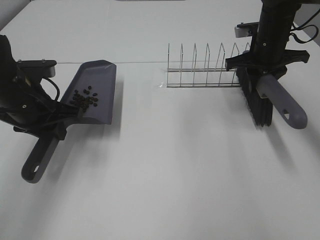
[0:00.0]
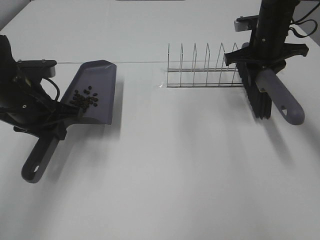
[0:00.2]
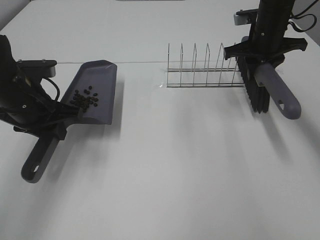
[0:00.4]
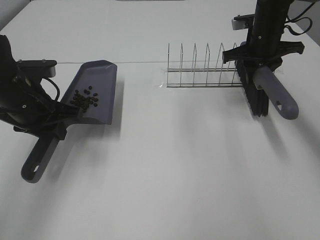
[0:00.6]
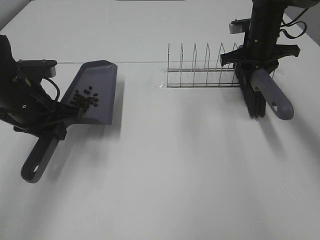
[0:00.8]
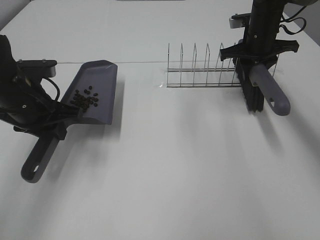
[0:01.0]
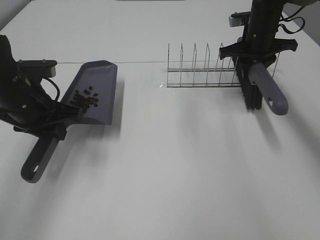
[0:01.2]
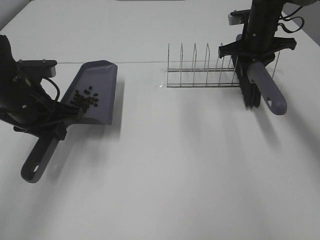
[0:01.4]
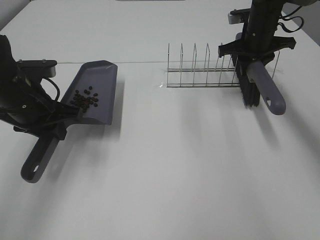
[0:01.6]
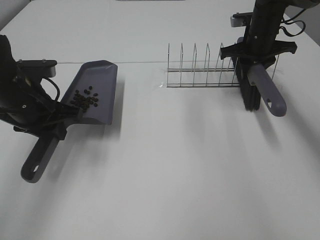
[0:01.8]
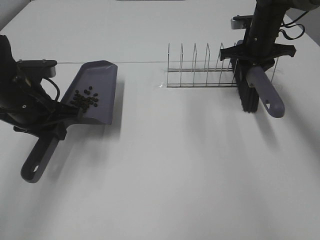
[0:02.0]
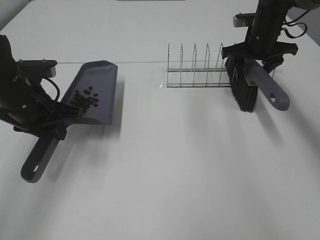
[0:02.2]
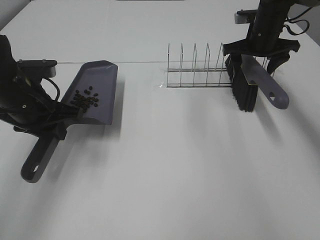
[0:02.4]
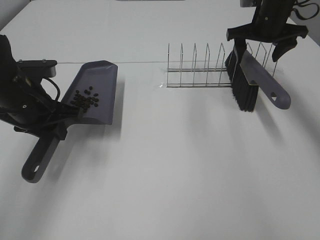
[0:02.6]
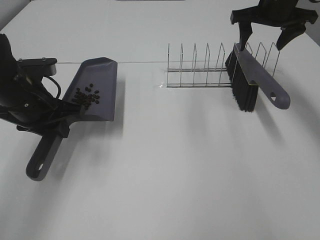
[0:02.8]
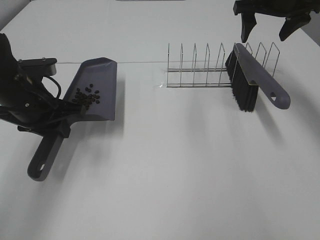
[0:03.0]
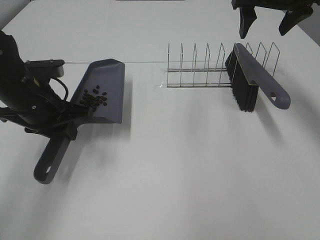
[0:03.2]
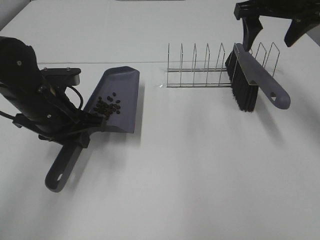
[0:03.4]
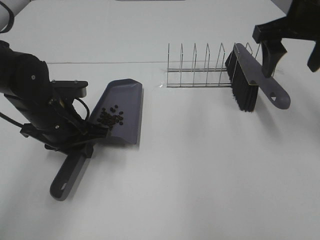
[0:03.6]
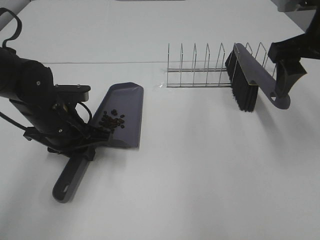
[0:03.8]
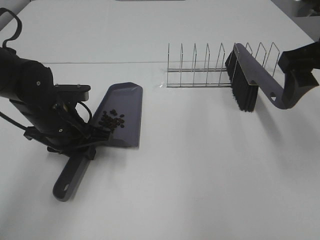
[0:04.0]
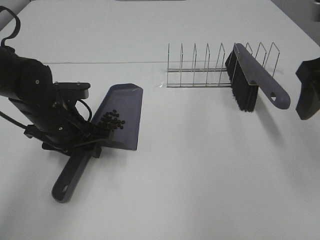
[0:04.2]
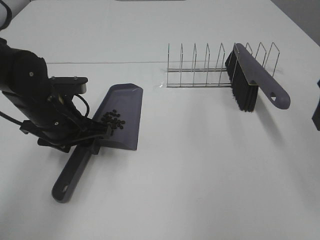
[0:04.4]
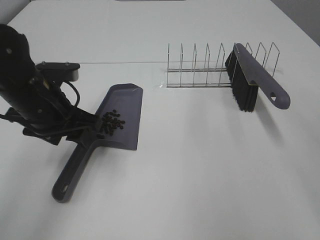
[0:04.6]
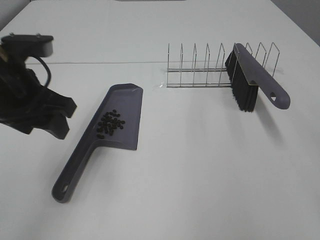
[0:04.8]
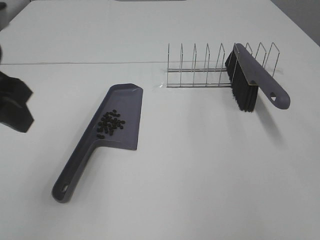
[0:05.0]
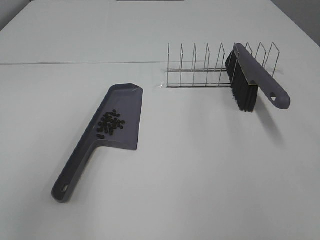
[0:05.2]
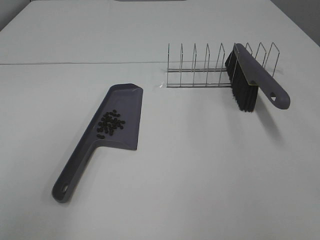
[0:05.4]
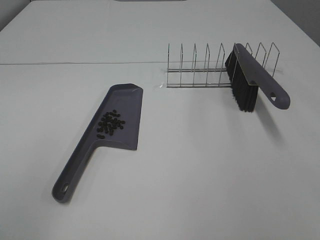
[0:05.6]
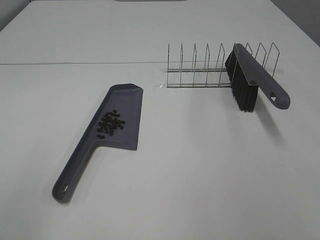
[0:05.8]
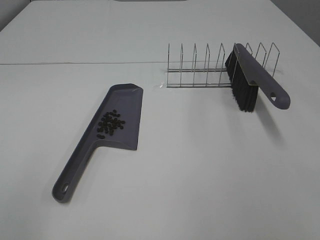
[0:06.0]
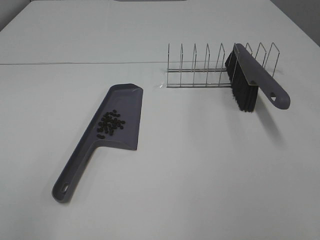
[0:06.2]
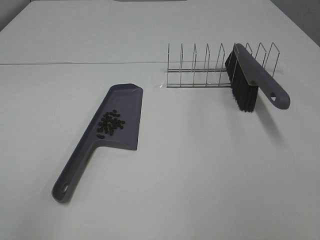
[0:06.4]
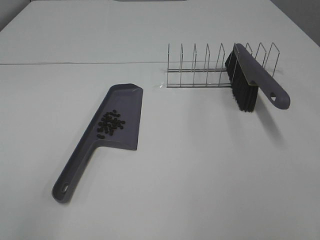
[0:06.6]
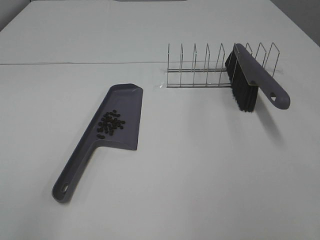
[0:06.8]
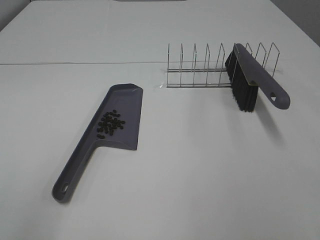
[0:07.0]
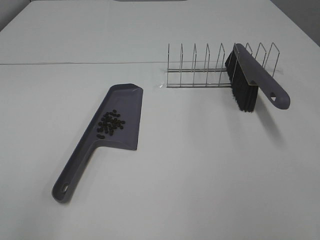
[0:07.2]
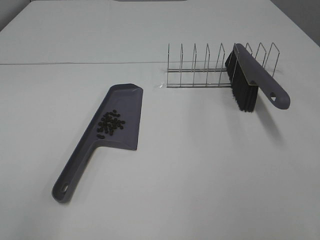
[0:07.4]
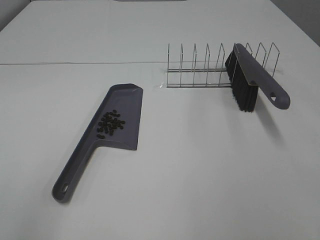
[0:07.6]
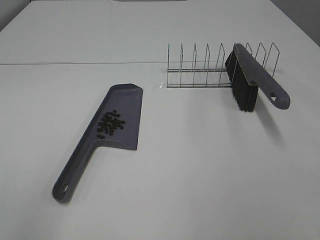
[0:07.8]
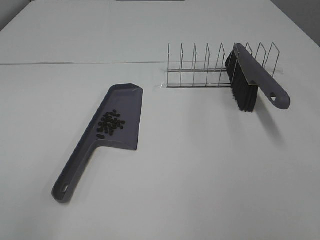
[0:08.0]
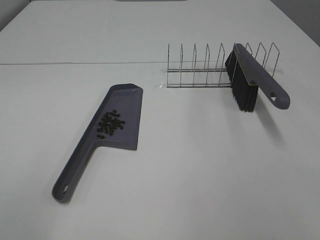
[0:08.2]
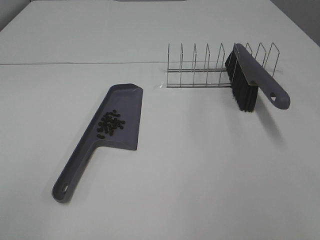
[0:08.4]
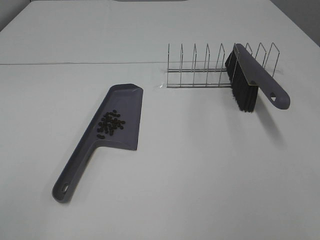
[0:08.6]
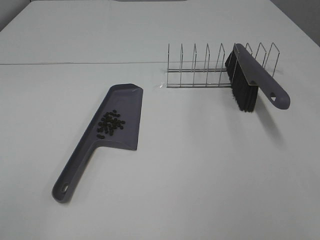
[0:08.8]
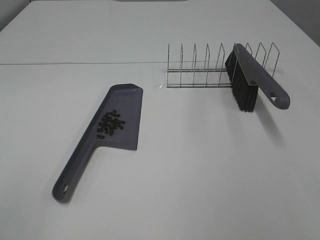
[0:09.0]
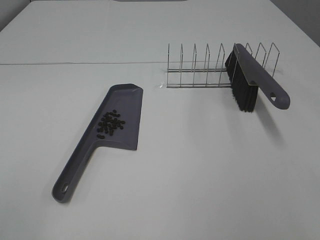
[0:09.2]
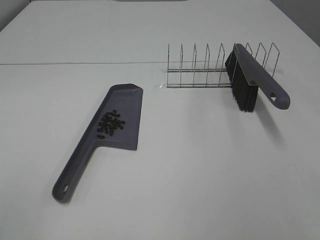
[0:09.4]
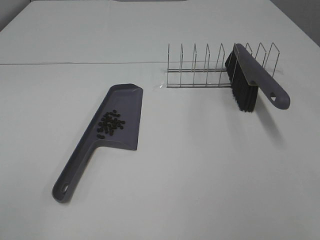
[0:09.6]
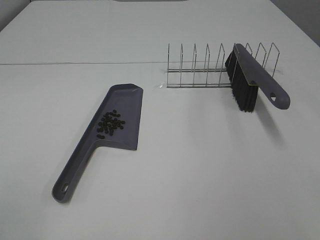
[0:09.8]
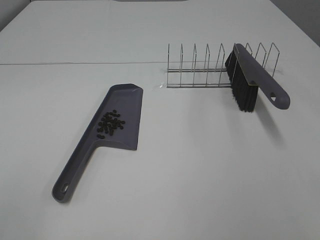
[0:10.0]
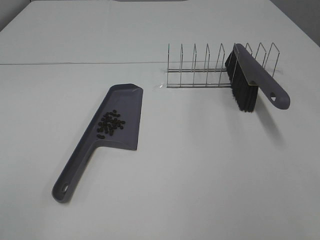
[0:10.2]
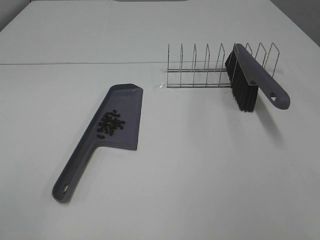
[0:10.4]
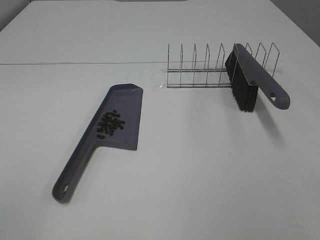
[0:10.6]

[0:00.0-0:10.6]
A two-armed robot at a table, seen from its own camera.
Task of the whole recording: Sweep Coffee Bean.
Step, 0:00.0 to 0:02.4: Right hand:place the broom on the rack.
Step, 0:02.6 to 0:04.4: Left hand:place the dustpan on the table.
0:00.0 to 0:01.6: The grippers stay close to where they were, moving slightly.
0:01.6 to 0:03.0: The right gripper shifts approximately 10 cm upward, and opens up.
0:03.0 to 0:04.6: The right gripper heads backward, covering some 30 cm; the left gripper opens up.
0:04.6 to 0:06.0: The left gripper goes about 30 cm backward, to the left and upward; the right gripper is displaced backward by about 10 cm.
0:09.0 to 0:10.6: The two grippers keep their place.

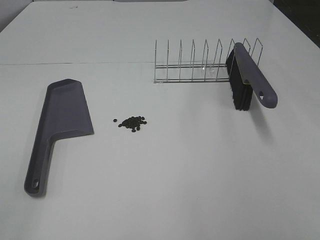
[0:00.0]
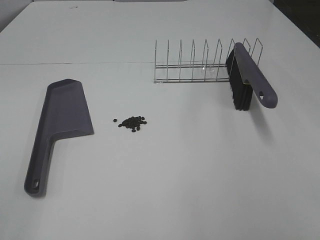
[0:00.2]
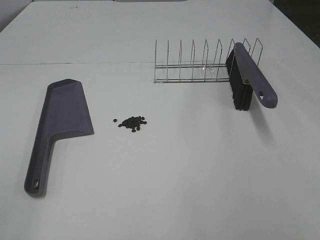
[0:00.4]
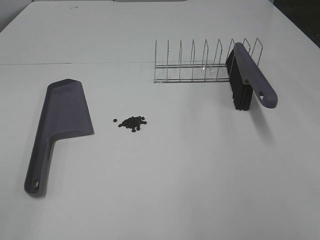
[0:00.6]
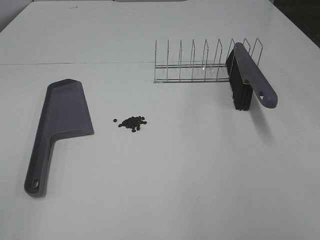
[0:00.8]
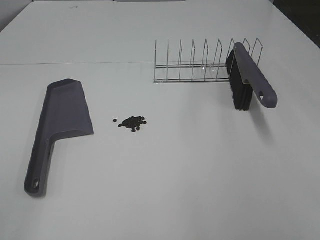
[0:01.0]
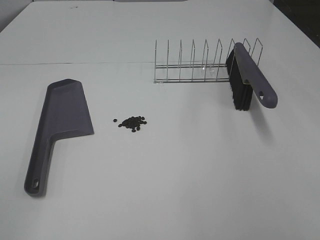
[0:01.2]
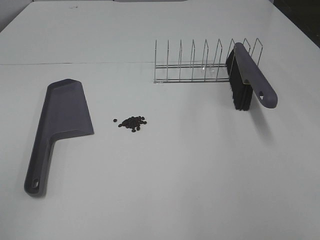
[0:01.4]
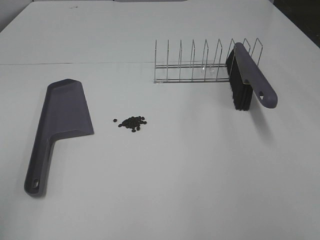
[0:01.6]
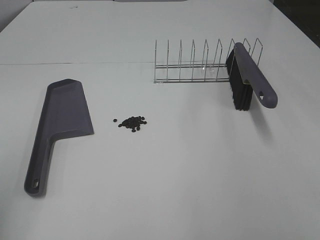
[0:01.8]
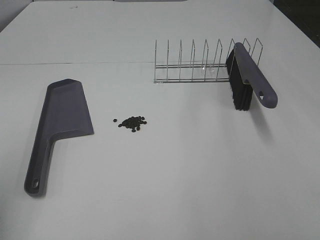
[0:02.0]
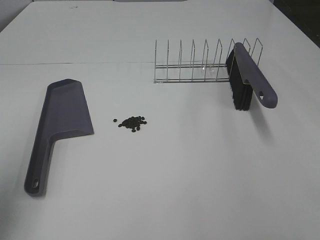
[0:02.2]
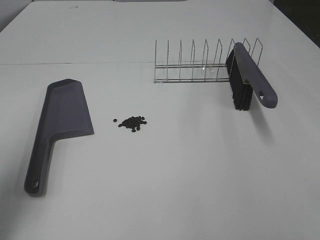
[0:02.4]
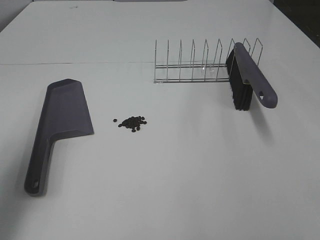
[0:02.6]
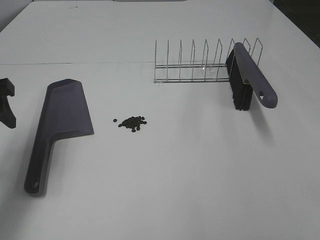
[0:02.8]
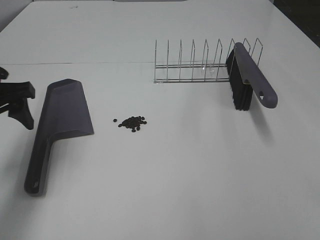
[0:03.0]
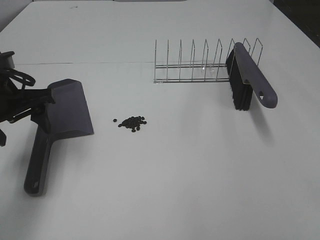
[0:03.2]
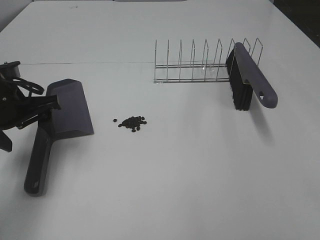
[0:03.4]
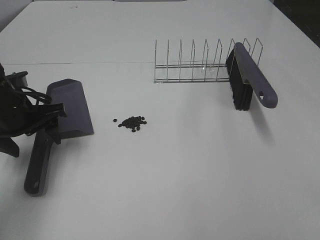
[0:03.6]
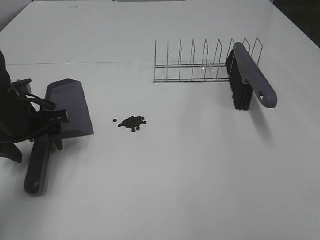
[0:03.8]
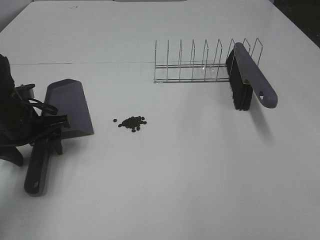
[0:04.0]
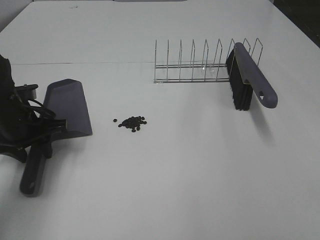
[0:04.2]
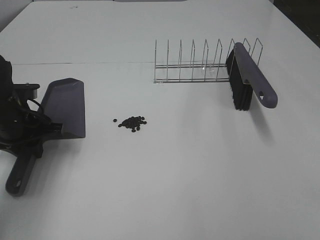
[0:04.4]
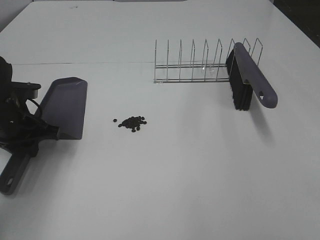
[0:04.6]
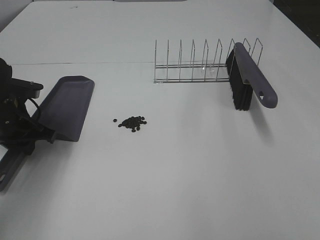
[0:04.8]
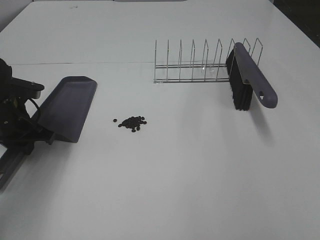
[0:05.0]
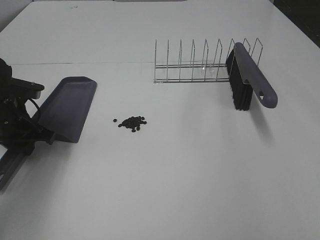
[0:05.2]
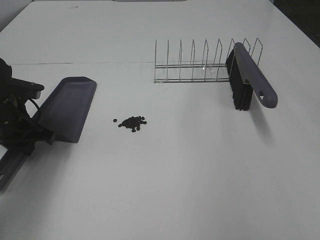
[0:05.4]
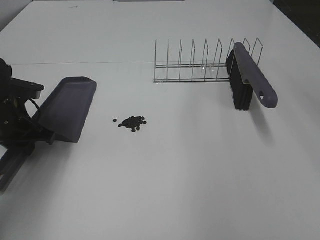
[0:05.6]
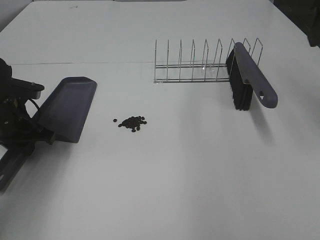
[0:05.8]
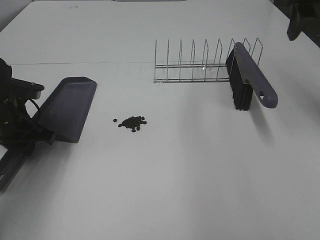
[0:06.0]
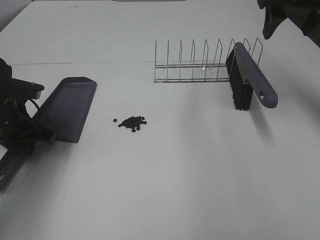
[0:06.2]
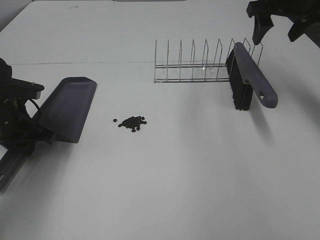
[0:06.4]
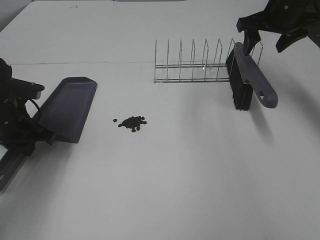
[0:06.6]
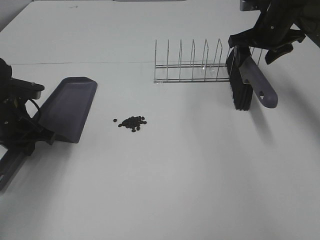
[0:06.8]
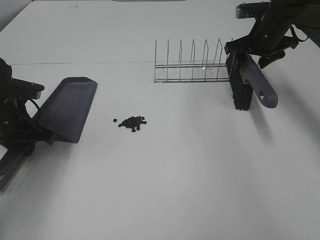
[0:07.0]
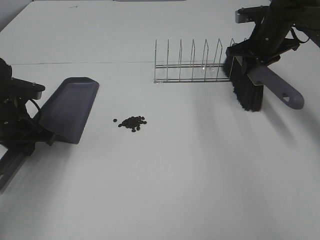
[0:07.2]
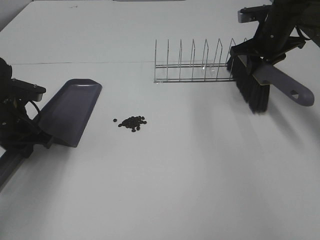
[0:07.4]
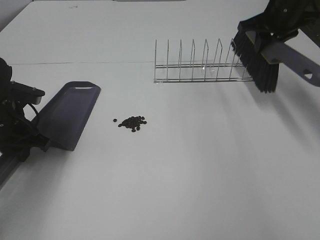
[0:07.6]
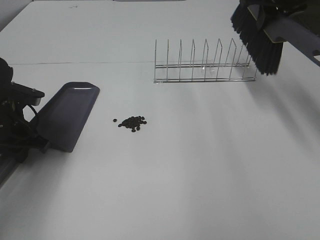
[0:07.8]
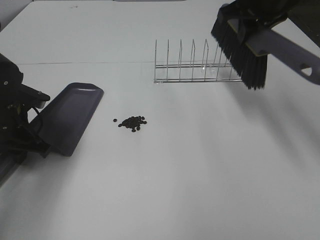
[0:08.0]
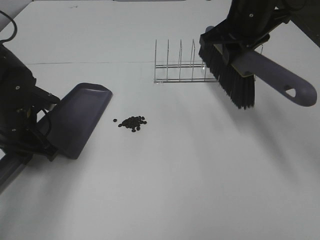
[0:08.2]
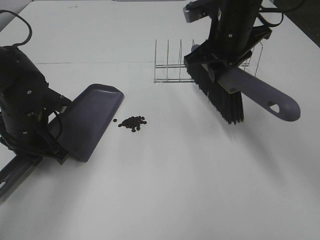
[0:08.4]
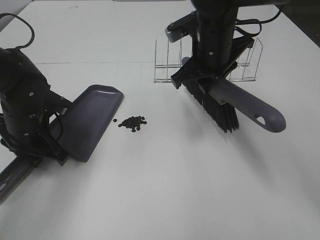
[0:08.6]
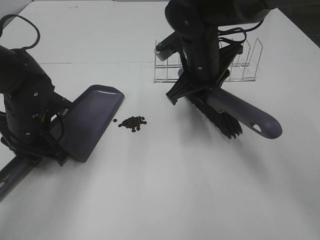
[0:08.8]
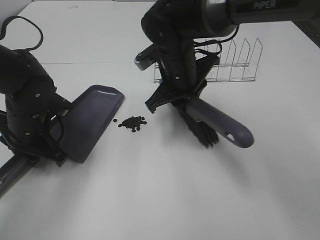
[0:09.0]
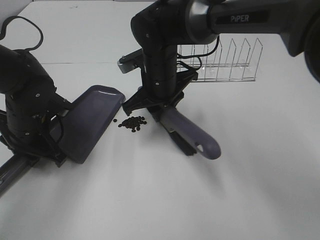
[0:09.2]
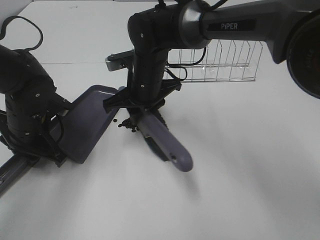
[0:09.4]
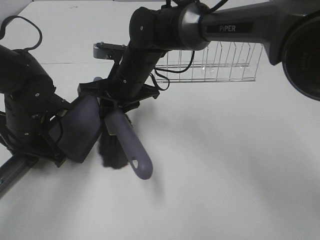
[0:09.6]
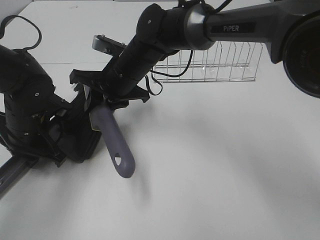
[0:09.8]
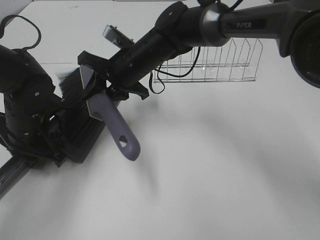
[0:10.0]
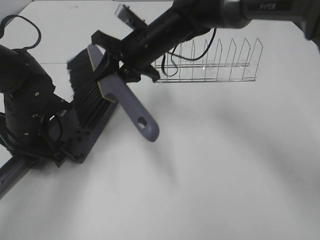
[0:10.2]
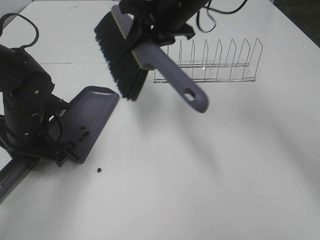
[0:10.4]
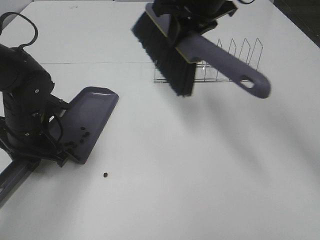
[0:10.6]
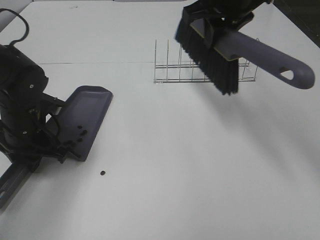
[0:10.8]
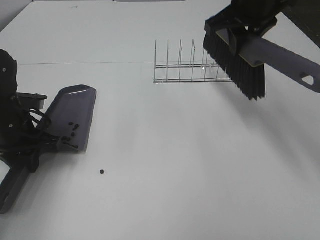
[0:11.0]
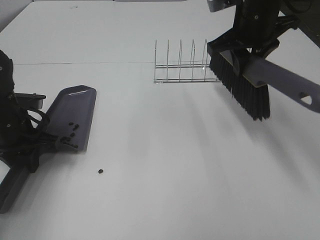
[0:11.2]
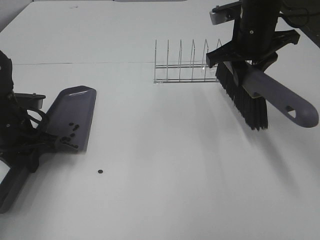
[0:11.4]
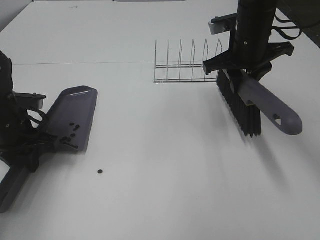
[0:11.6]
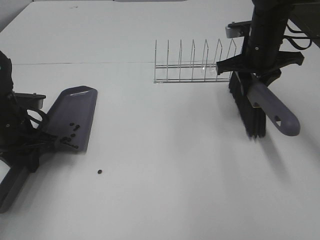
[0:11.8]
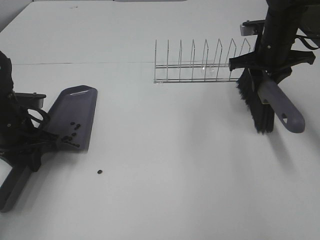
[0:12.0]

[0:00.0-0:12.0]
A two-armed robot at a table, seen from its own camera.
Task of the whole recording: Sweep Coffee Bean.
Step, 0:00.0 to 0:04.2: Left hand: grab the dustpan.
Step, 0:04.4 to 0:07.2: Right hand:grab the broom.
Step, 0:07.4 to 0:10.2: Right hand:sweep the coffee beans into the dustpan.
0:01.6 to 0:03.0: The left gripper is displaced forward by some 20 cm.
0:03.0 to 0:04.4: The left gripper travels downward by some 10 cm, and closes its fingers.
0:04.4 to 0:06.0: The right gripper shifts some 35 cm forward.
0:06.0 to 0:07.6: The right gripper is displaced forward and downward by some 15 cm, and closes.
0:07.6 to 0:09.0: The right gripper shifts some 25 cm to the left and backward. Meanwhile the left gripper goes some 5 cm to the right.
0:09.0 to 0:10.4: The right gripper goes roughly 10 cm upward.
0:10.4 to 0:12.0: The right gripper moves to the right and downward, approximately 20 cm.
